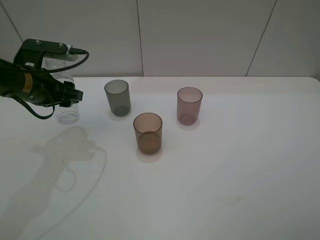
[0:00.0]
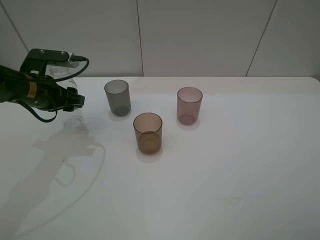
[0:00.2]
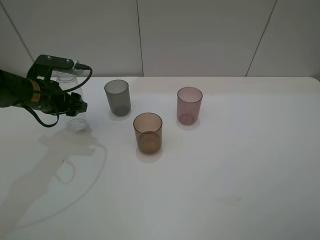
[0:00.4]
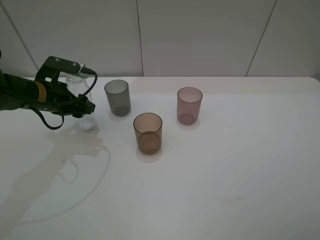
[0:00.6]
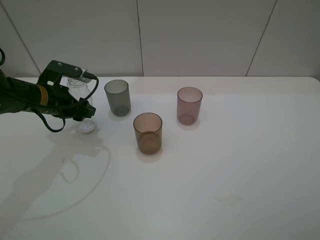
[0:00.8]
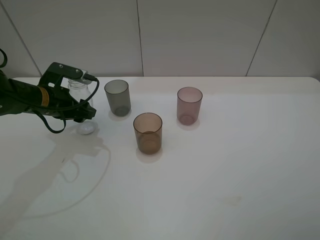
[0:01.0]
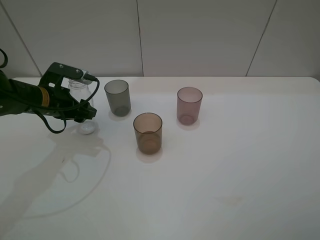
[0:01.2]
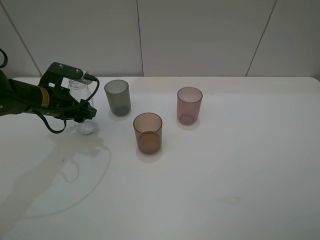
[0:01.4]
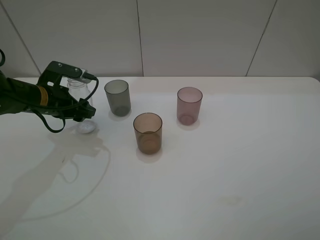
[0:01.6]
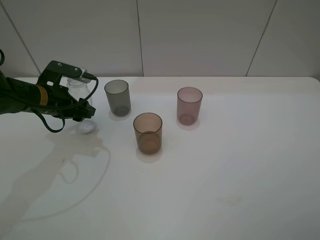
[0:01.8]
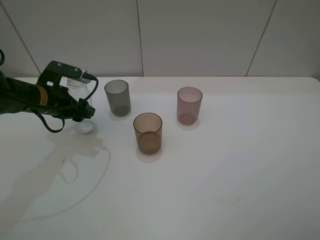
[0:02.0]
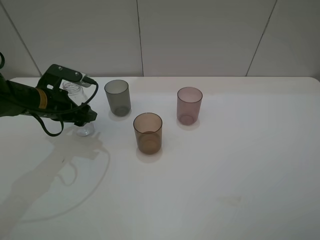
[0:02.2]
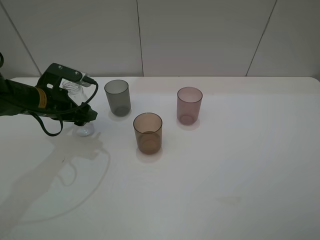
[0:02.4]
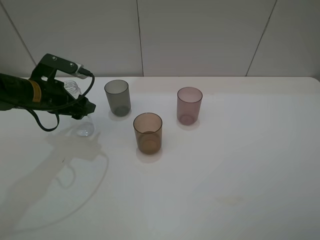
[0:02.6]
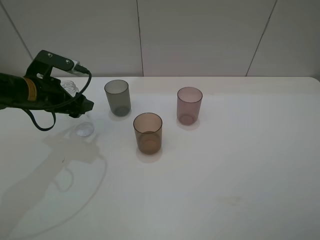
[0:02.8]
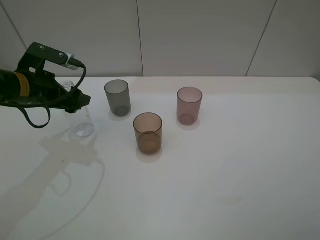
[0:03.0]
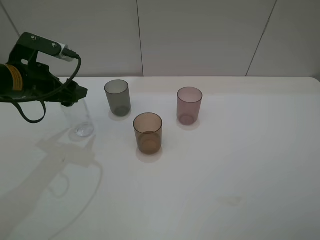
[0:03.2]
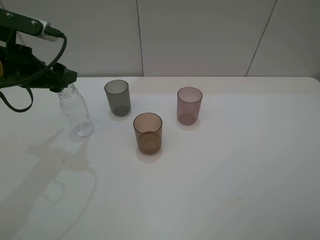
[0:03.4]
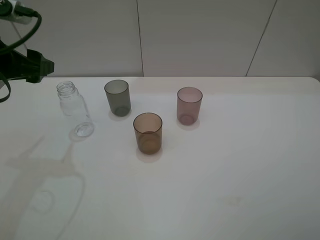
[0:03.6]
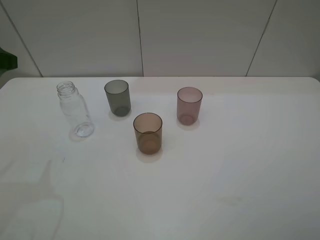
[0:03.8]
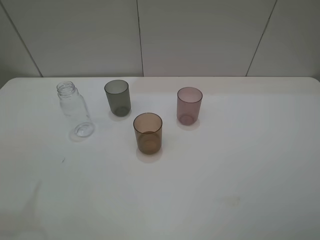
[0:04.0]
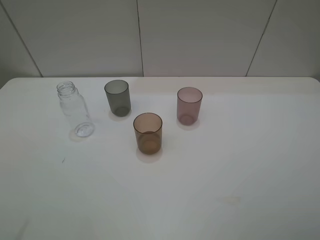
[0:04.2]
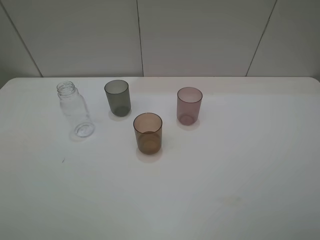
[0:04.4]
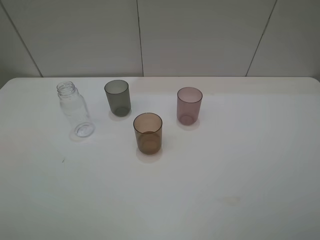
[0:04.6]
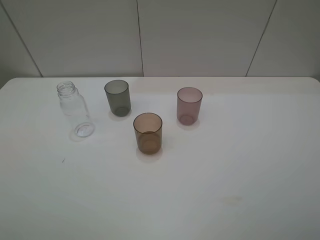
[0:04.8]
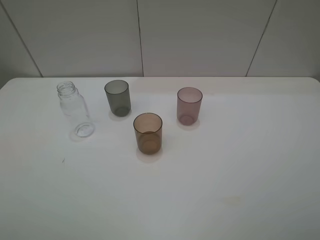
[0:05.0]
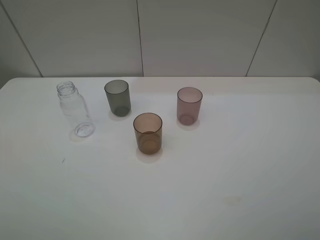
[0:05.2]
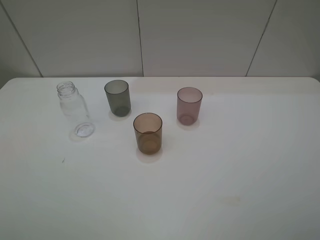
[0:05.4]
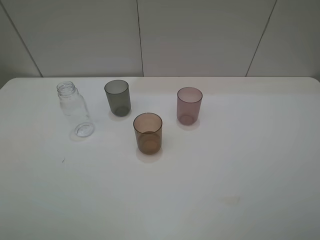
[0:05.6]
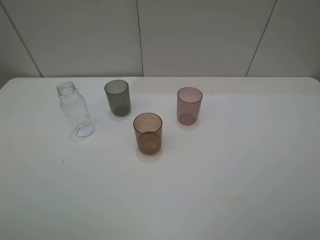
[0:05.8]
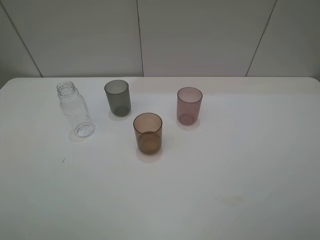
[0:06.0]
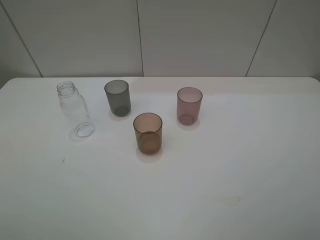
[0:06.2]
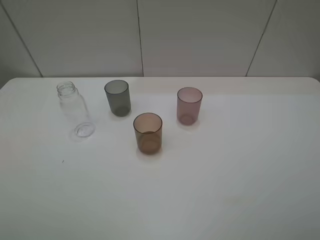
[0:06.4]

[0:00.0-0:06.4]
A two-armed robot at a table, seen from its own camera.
Task of the whole recording: pick up the bottle filled with water and pour water into the middle cup of the three cups.
0:00.0 to 0:01.6: The left gripper is displaced downward by about 5 cm.
0:01.6 to 0:03.2: The left gripper is displaced upward by some 5 cm, and opens.
0:03.2 to 0:04.8: The left gripper moves backward, some 30 cm.
